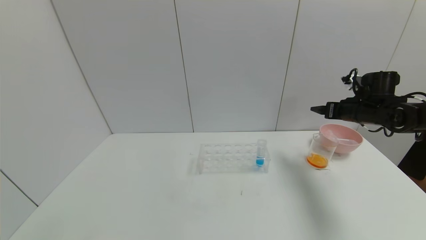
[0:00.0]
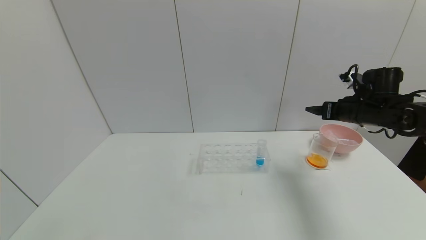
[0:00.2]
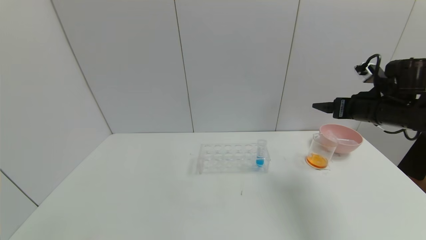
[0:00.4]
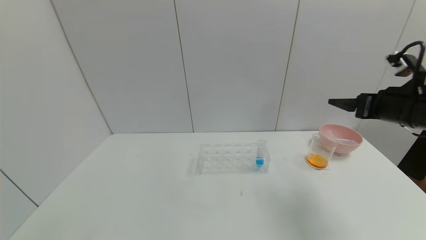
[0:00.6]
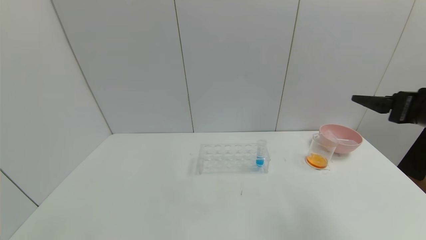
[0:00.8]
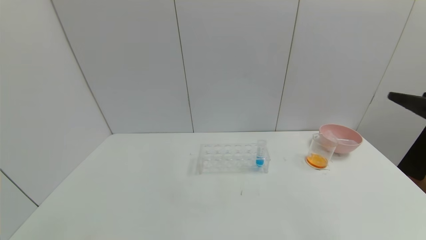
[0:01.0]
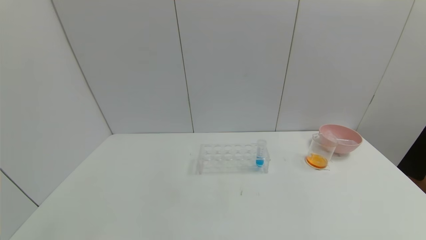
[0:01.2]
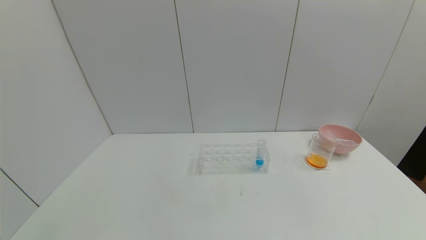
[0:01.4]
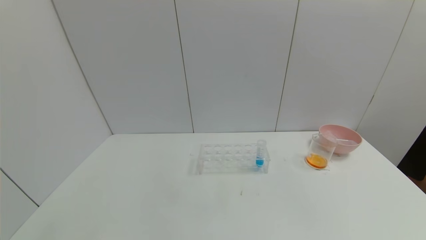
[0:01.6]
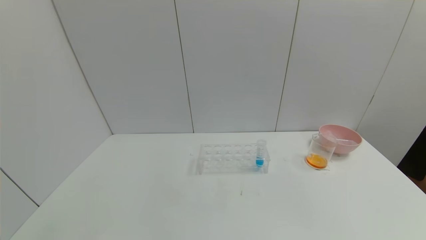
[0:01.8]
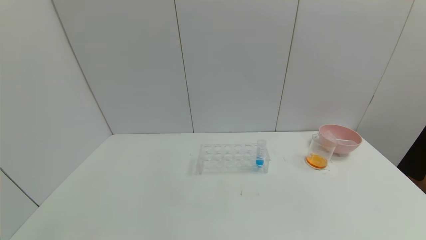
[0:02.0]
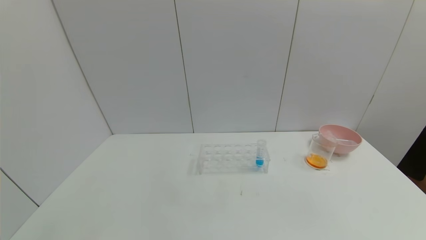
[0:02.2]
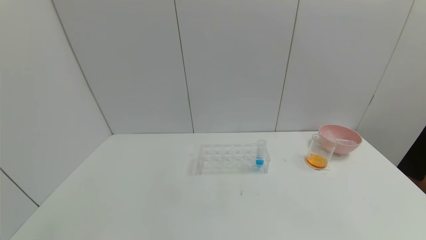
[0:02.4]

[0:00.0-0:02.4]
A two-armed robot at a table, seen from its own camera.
Task of the whole recording: pick up the test tube with yellow pigment and the test tube with red pigment by grippers and pour them into the beaker.
0:00.0 to 0:01.2: The right gripper goes about 35 cm backward.

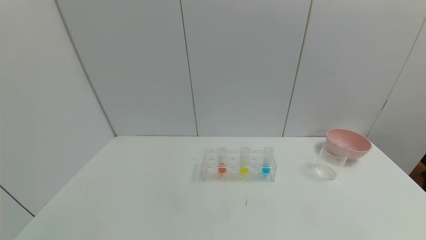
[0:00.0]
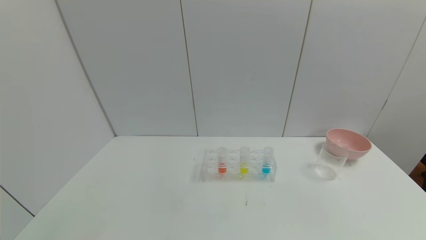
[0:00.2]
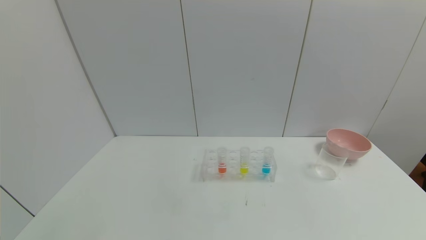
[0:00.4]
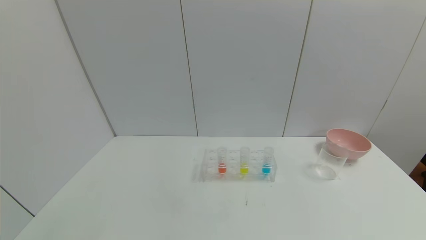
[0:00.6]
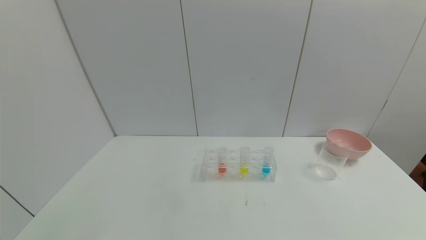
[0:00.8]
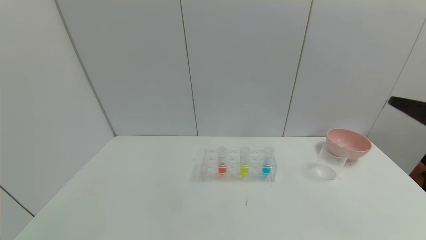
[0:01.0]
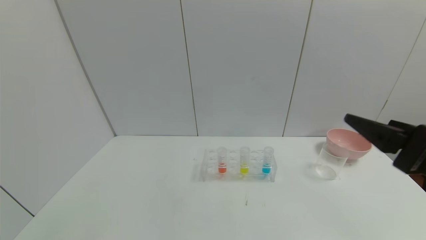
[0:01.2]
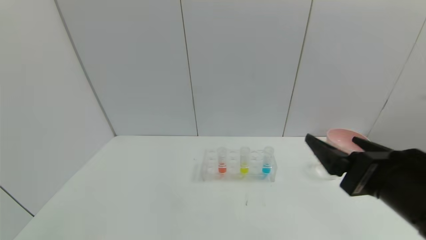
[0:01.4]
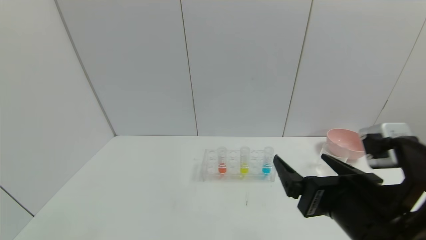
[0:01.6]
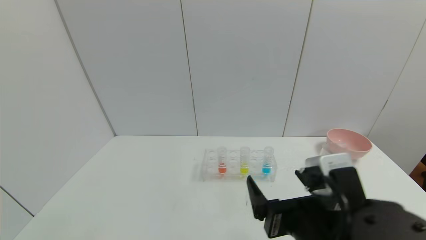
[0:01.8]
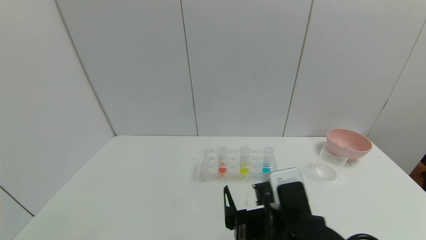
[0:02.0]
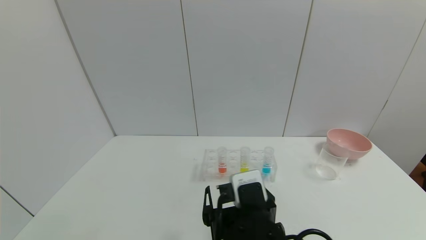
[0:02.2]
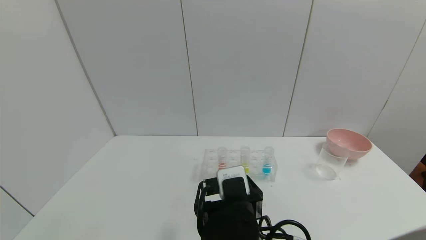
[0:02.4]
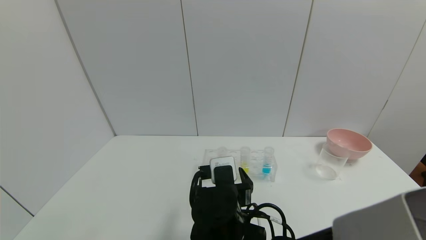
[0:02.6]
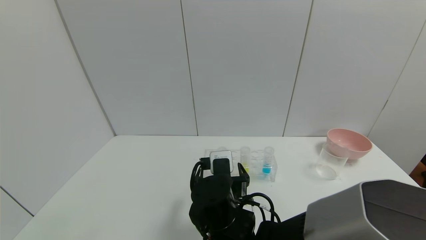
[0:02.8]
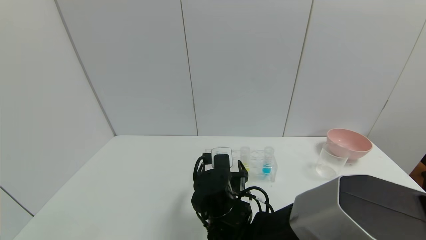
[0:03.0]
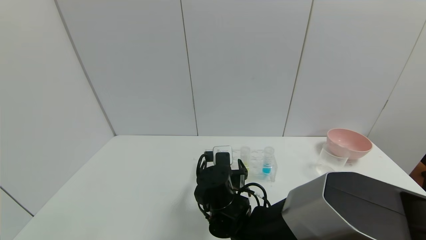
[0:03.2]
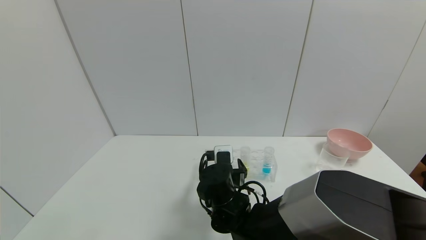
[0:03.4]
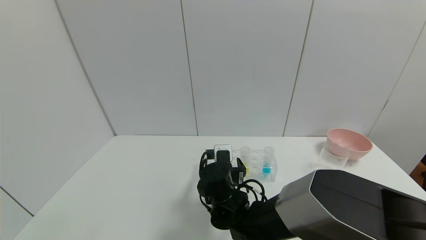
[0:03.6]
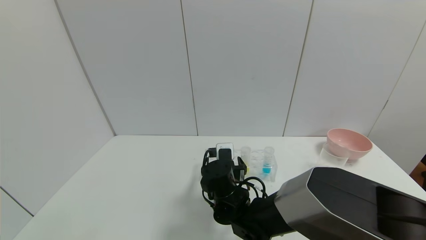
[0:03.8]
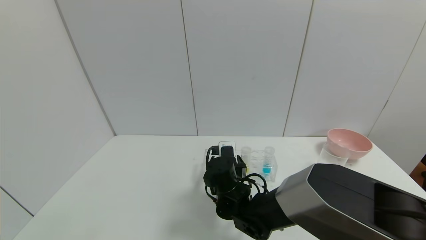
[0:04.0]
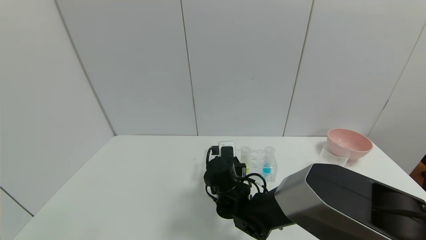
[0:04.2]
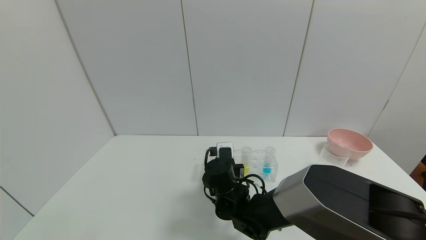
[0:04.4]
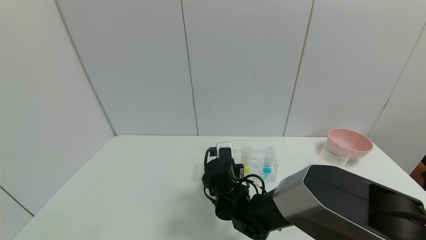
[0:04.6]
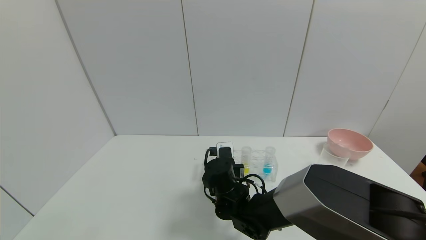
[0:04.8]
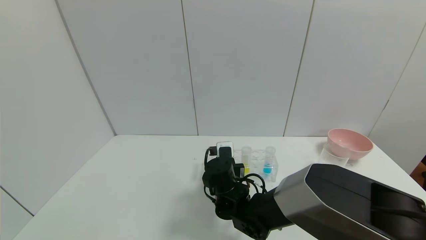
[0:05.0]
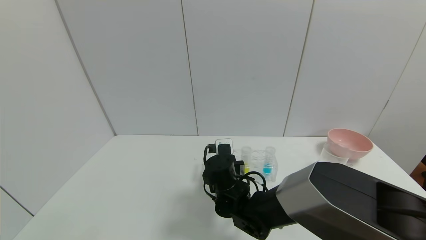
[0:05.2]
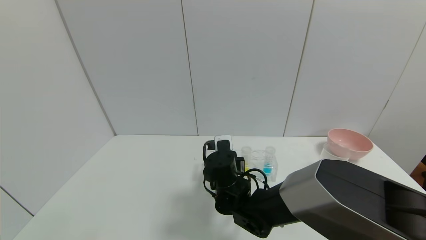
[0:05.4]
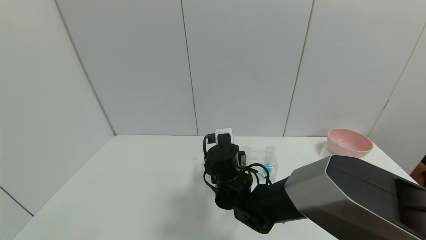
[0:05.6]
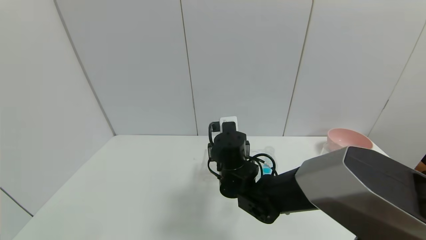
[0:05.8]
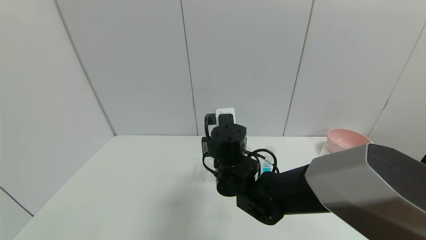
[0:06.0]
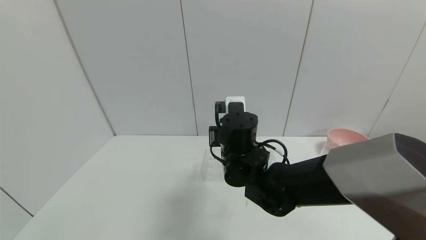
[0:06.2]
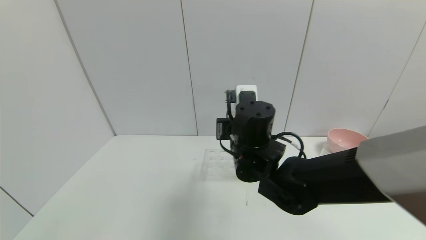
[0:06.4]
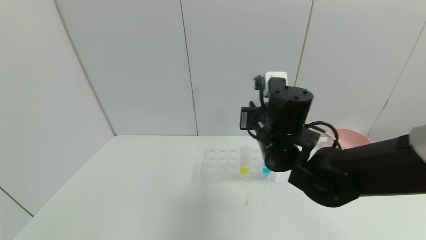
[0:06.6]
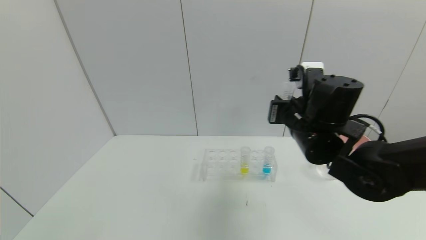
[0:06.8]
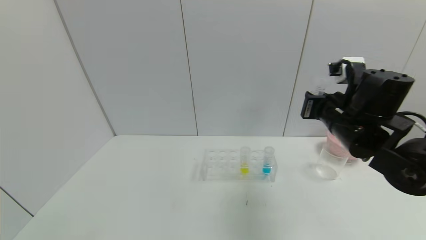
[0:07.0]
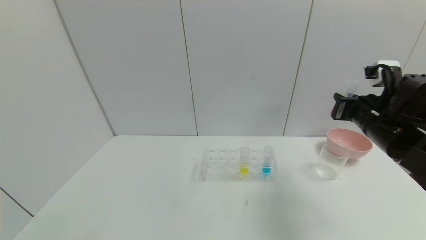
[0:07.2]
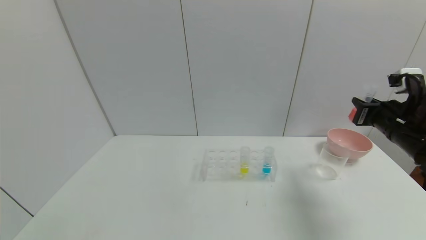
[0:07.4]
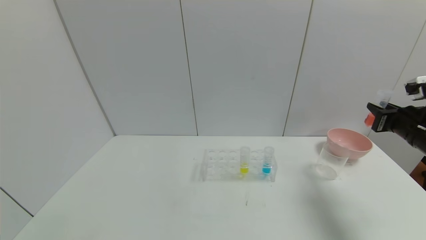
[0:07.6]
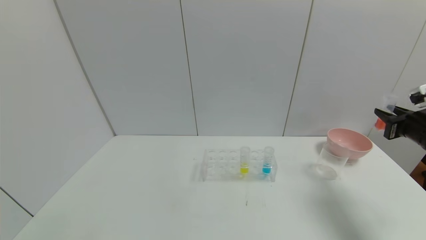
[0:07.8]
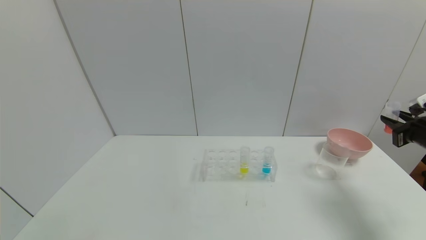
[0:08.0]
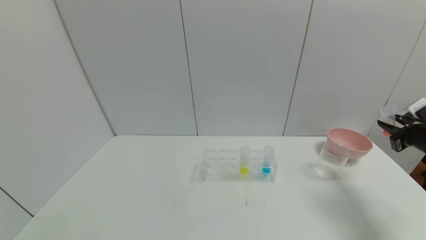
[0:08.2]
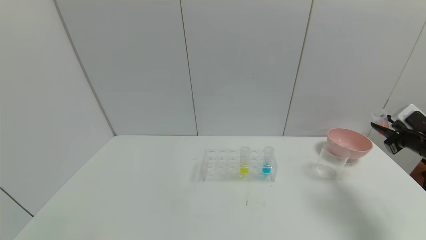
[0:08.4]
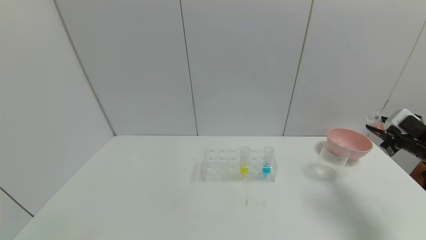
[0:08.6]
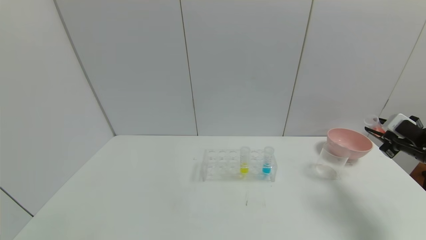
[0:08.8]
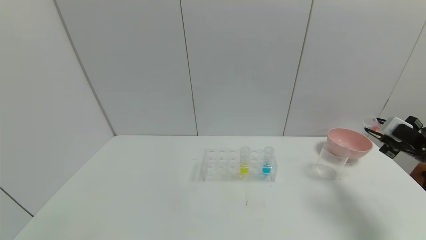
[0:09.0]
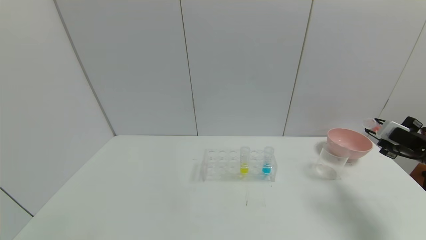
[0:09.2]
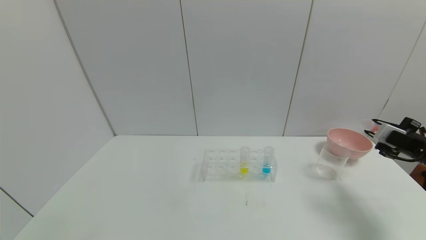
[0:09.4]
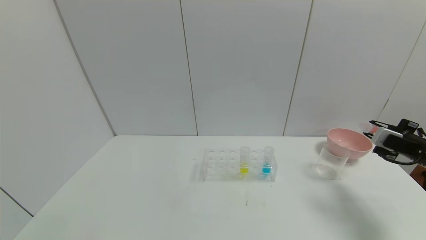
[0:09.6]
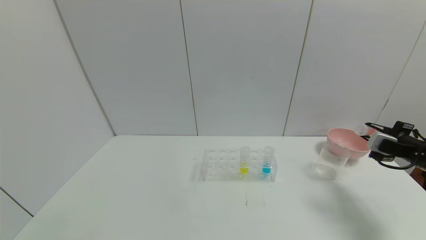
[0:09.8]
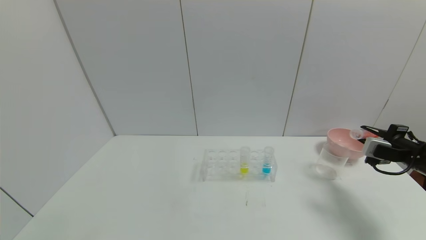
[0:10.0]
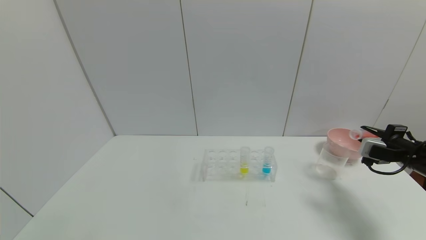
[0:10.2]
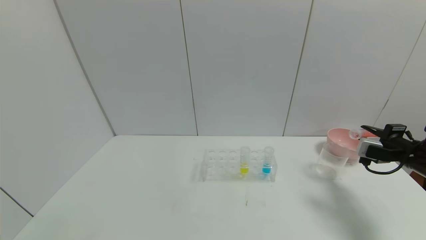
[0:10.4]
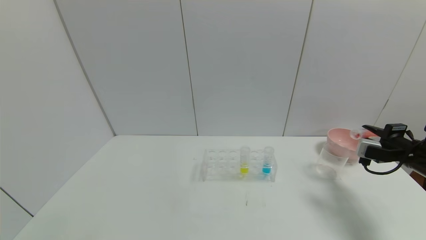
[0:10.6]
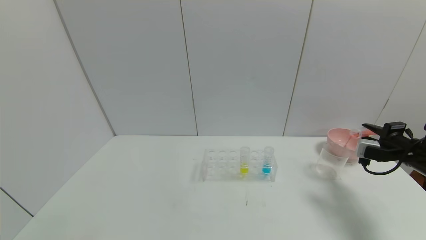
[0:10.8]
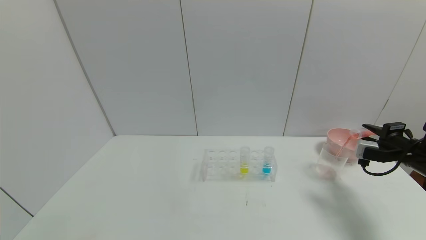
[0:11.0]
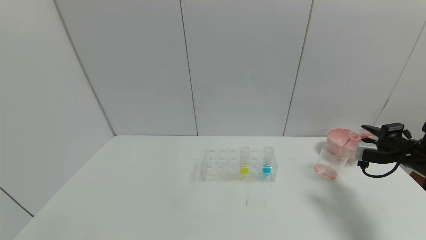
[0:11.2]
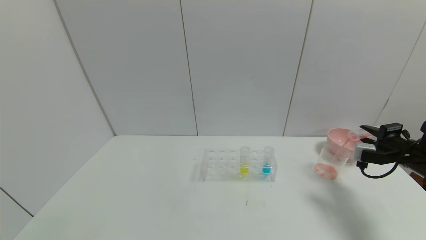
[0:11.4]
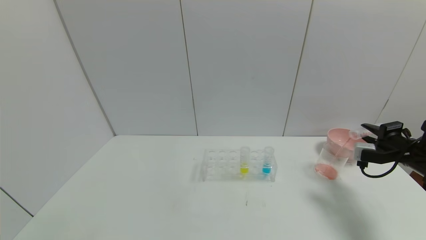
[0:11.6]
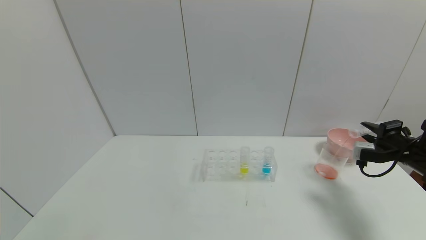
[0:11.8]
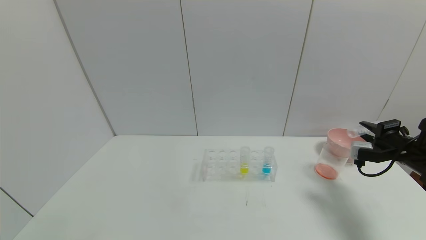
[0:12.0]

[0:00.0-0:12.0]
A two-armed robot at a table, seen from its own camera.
Task of the whole recording: pick up the test tube with yellow pigment and the test tube with red pigment by grippers and pour them into the beaker.
Step, 0:00.0 to 0:04.4: Grasp the red reagent with the right gripper.
Step, 0:04.6 to 0:12.0: Pour the red reagent into the graduated cylinder with the right gripper.
0:00.0 to 0:01.6: The right gripper heads to the left and forward, covering some 25 cm.
0:01.6 to 0:03.0: The right gripper goes roughly 25 cm to the left, forward and downward.
0:03.0 to 0:04.4: The right gripper travels forward by approximately 5 cm, and closes.
0:04.4 to 0:06.0: The right gripper travels upward by roughly 10 cm.
0:06.0 to 0:07.6: The right gripper heads to the right, covering roughly 40 cm.
0:07.6 to 0:09.0: The right gripper goes about 5 cm to the right.
0:10.4 to 0:12.0: The grippers make only small movements.

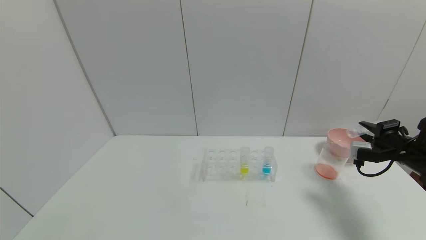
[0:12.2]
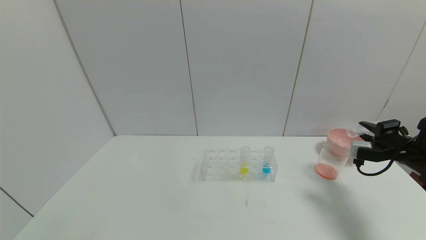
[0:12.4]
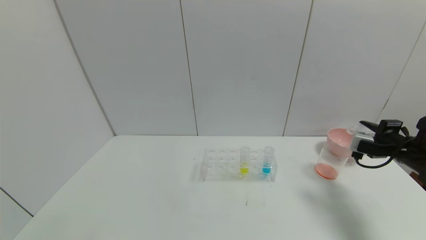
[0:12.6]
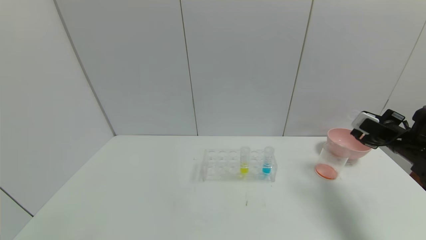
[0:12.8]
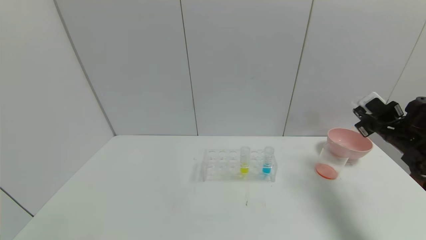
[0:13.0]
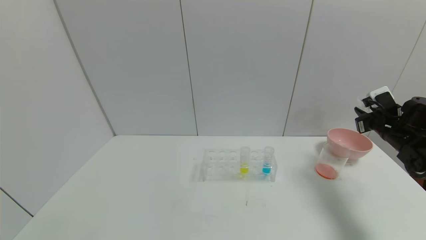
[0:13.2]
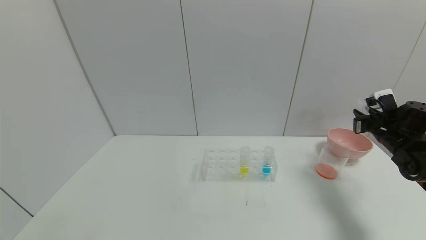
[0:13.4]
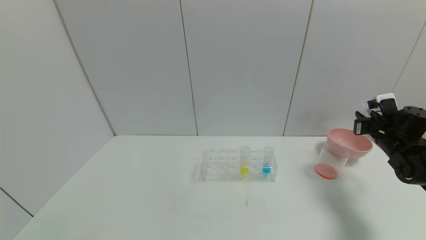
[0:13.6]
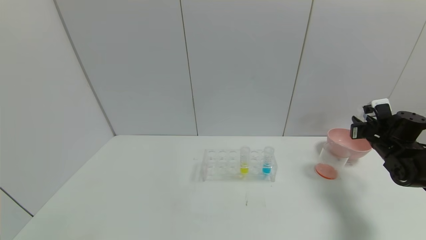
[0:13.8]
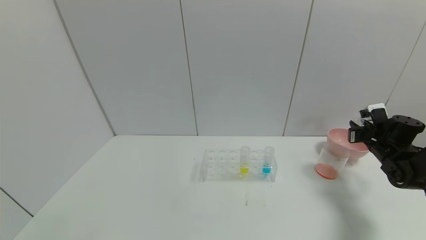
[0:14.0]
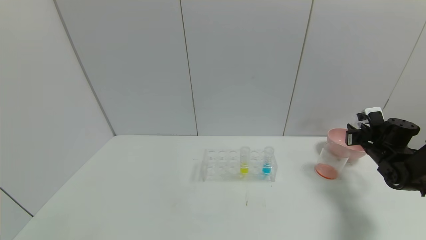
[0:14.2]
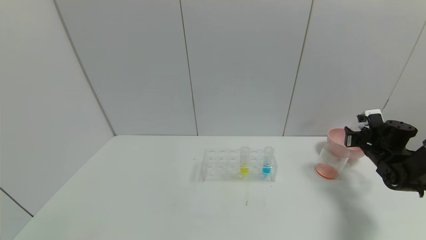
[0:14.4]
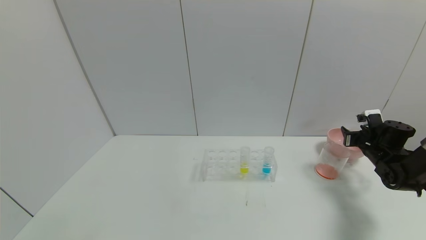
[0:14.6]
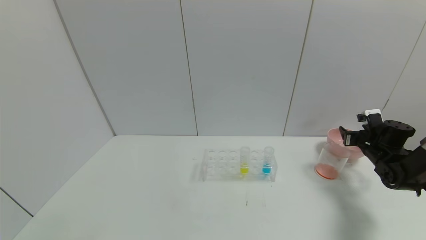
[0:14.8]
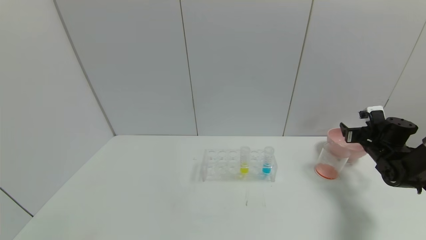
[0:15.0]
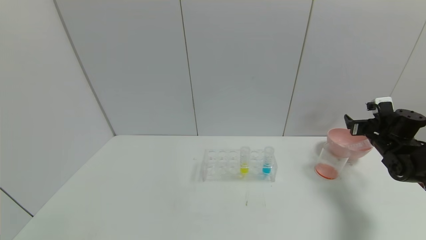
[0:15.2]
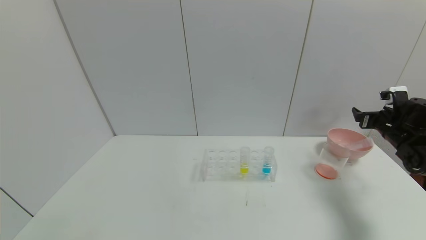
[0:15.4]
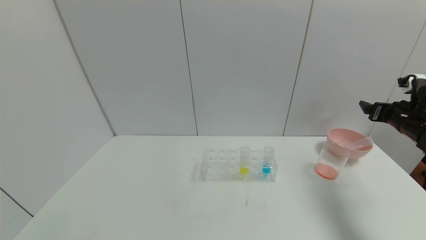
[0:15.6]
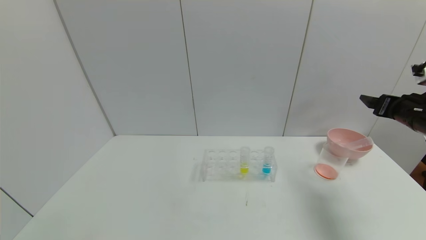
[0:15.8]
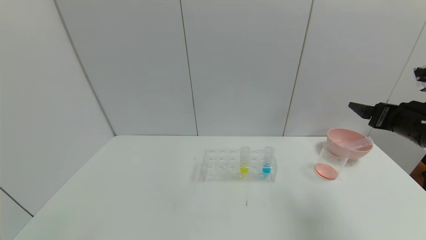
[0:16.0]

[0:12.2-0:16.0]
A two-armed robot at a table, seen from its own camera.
Task of the whole recording: pick up the test tube with yellow pigment and the test tube with red pigment by grippers and pour them into the beaker.
Step, 0:12.2 to 0:14.6: Place the test tube into the bowl with the right gripper.
0:12.2 to 0:13.4: The right gripper moves forward, roughly 5 cm.
0:13.4 to 0:14.8: The right gripper moves downward, about 5 cm, and opens its fingers.
0:14.8 to 0:16.0: The right gripper goes about 25 cm backward, upward and to the left.
